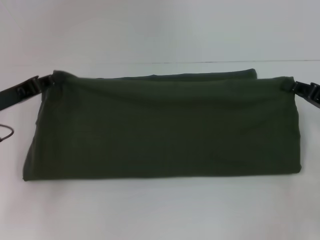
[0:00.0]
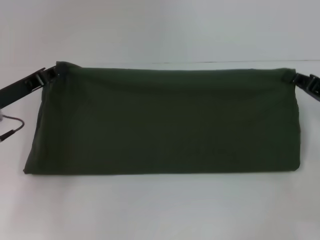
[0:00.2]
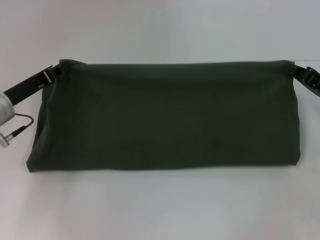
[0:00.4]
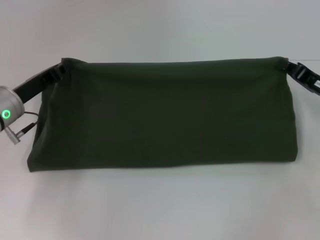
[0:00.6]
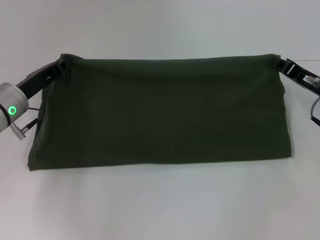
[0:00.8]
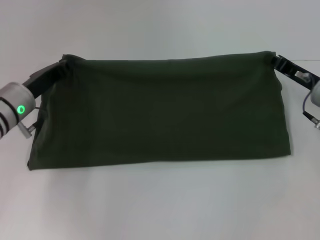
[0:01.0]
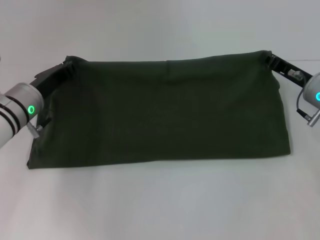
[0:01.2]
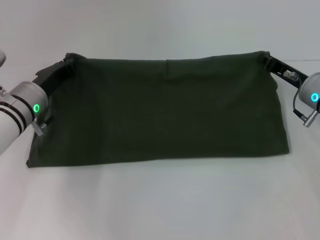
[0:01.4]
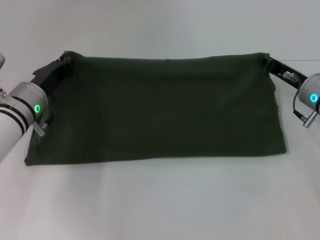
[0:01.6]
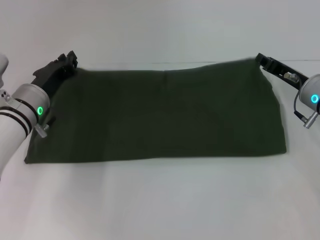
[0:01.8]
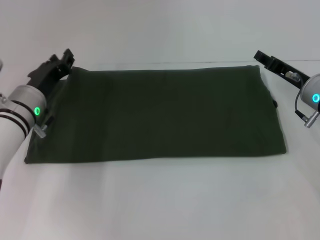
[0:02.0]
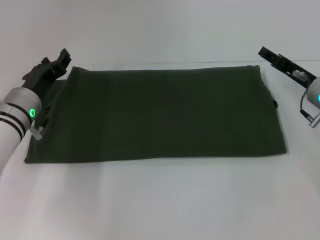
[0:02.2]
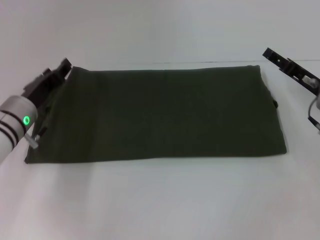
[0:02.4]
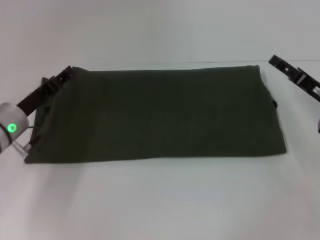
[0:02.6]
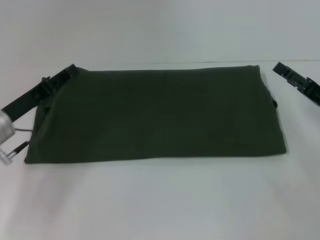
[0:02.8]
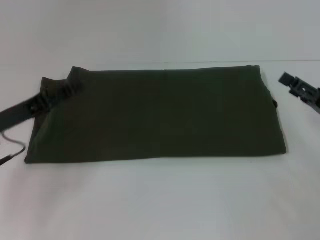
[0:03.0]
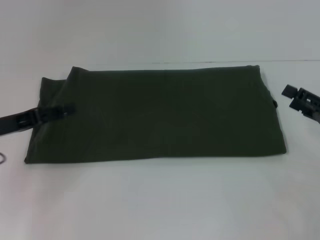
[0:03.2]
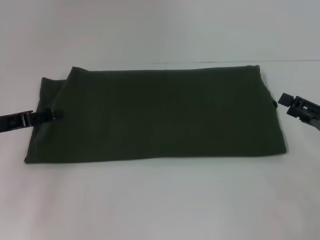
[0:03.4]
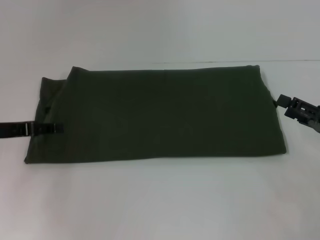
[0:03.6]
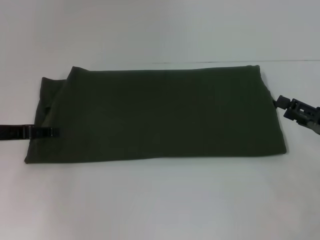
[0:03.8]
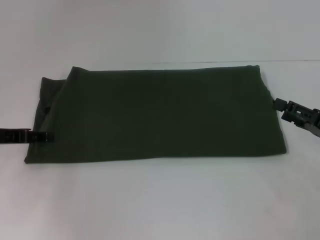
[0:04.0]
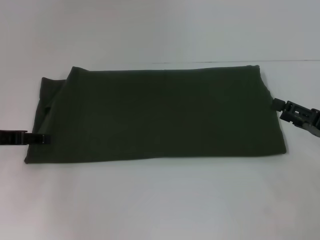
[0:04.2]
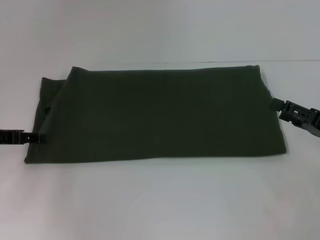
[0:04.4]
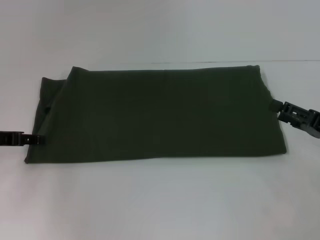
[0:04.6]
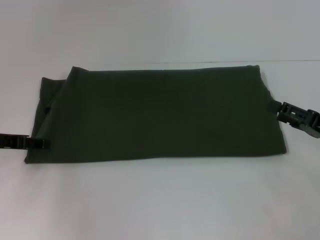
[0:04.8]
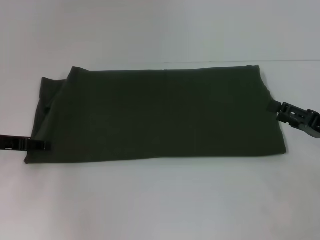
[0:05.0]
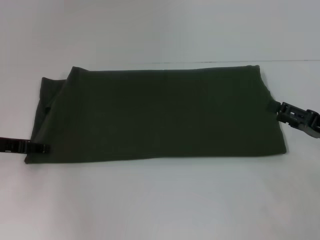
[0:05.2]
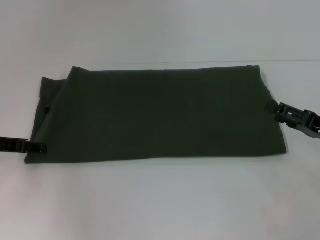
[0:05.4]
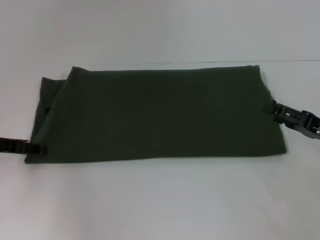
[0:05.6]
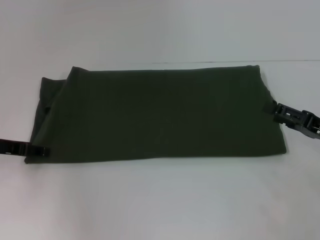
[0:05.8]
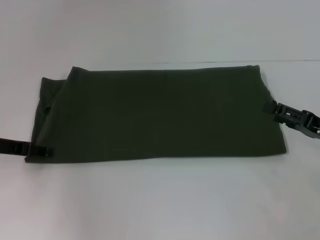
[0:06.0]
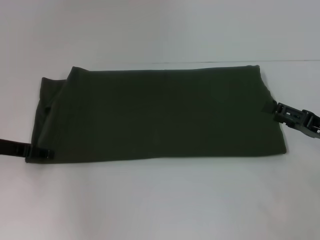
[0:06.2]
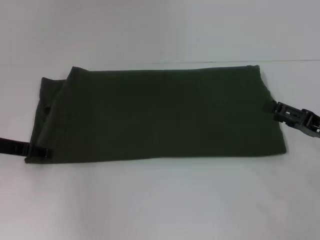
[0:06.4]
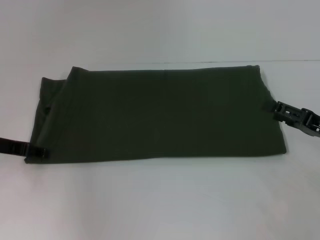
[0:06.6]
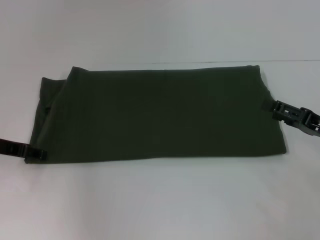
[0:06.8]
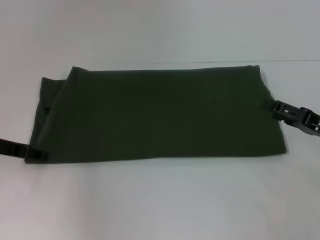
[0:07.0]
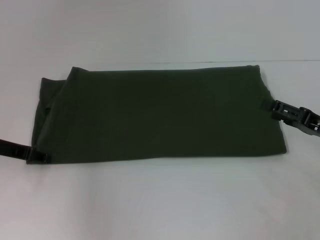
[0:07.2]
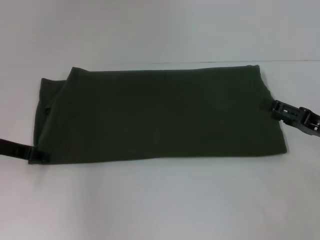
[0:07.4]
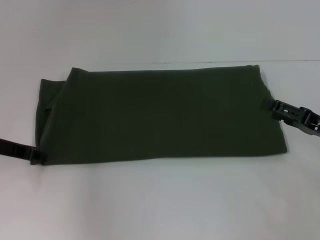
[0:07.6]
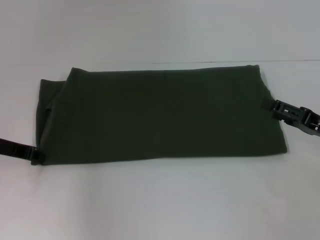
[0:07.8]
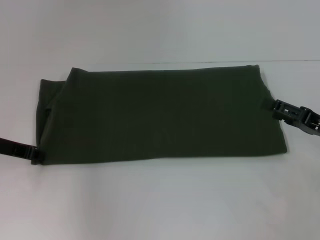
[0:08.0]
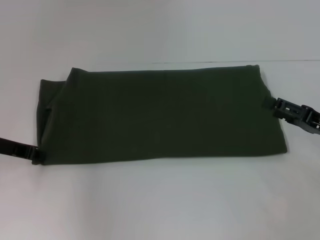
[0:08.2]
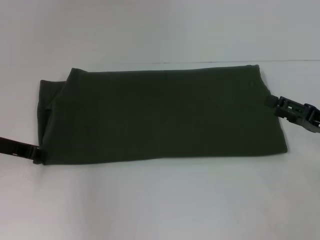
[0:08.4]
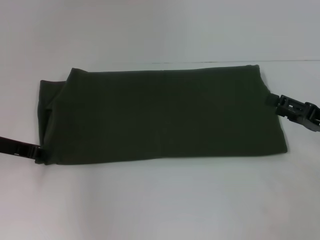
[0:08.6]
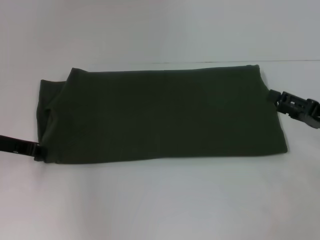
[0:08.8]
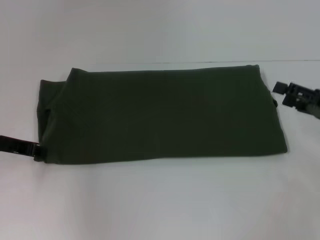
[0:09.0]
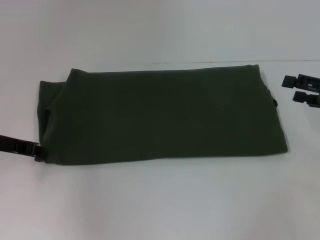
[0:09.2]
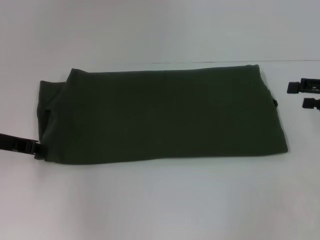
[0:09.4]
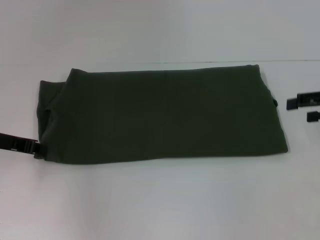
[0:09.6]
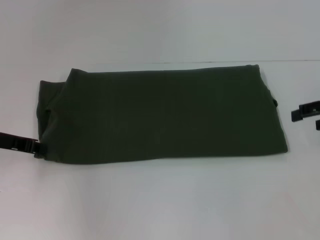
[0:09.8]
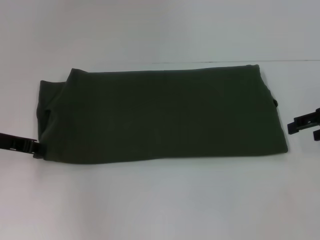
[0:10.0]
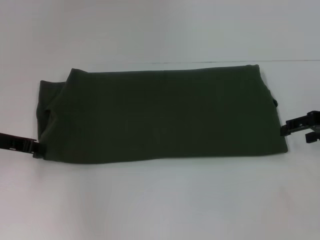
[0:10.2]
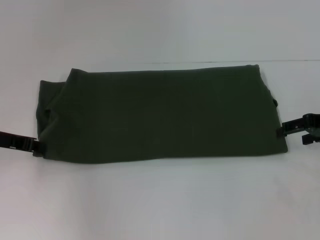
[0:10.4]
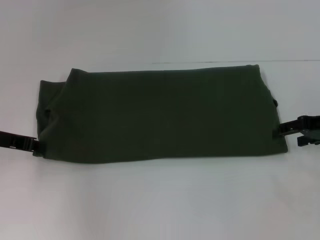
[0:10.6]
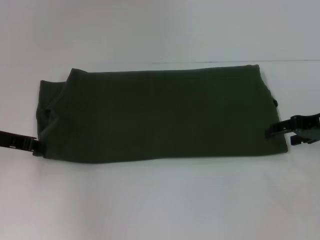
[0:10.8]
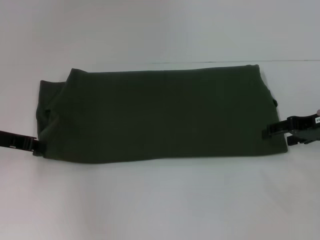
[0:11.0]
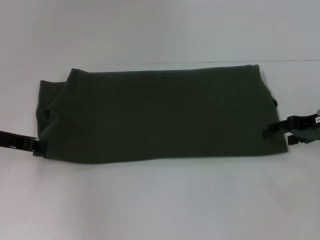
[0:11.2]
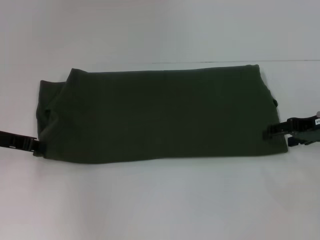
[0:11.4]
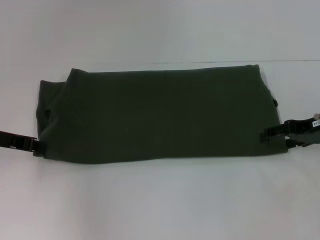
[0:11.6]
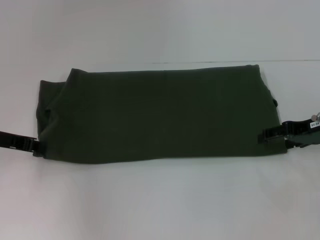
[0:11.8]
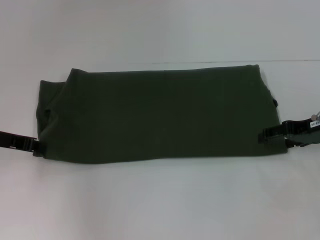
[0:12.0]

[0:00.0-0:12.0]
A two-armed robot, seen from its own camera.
Step, 0:00.0 to 0:02.2: Fold the clothes with your left hand.
Step, 0:00.0 to 0:02.2: Fold the clothes with your right hand.
0:00.0 to 0:01.6: The right gripper moves to the left and forward, about 10 cm, while the left gripper travels to the right and forward by about 10 cm.
0:01.6 to 0:03.0: The left gripper heads backward and to the left, covering roughly 10 cm, and opens up. The right gripper moves backward and to the right, roughly 10 cm, and opens its fingers.
0:03.0 to 0:04.4: The left gripper changes place by about 5 cm.
0:04.4 to 0:07.6: There are only small adjustments of the grippers.
0:07.6 to 0:09.0: The left gripper closes.
0:09.0 to 0:10.4: The right gripper is displaced forward by approximately 5 cm.
0:10.4 to 0:12.0: The grippers stay close to where they were, moving slightly.

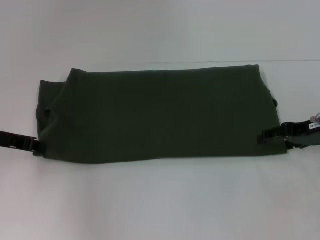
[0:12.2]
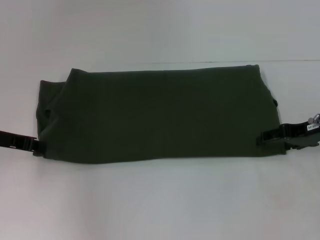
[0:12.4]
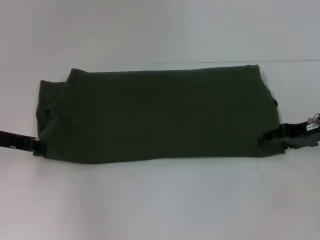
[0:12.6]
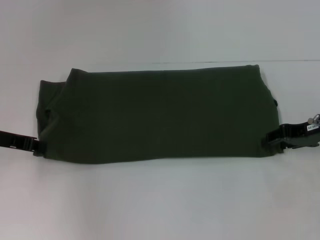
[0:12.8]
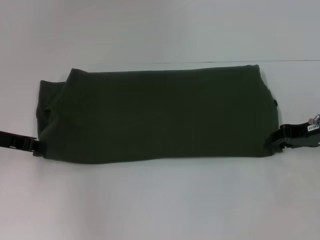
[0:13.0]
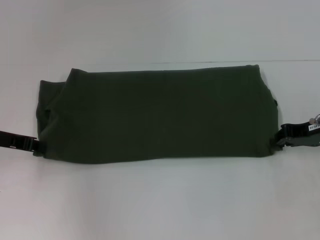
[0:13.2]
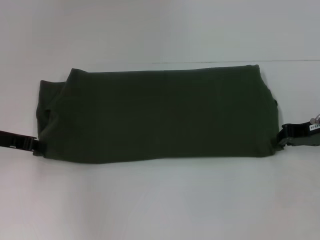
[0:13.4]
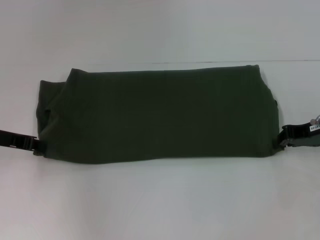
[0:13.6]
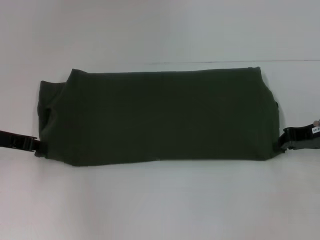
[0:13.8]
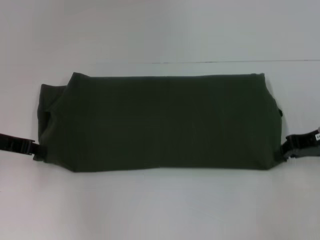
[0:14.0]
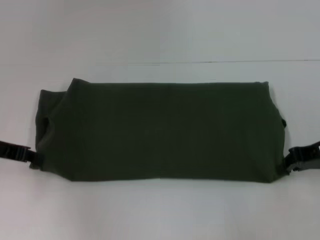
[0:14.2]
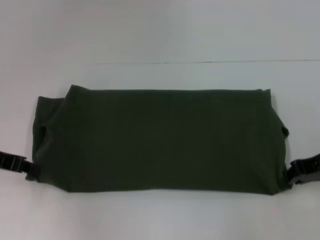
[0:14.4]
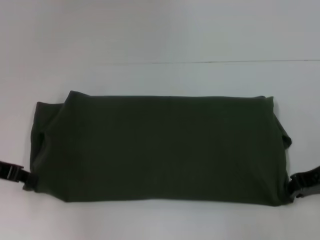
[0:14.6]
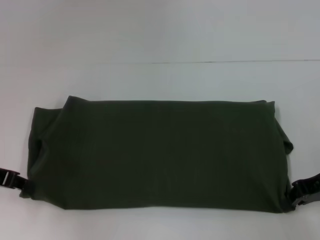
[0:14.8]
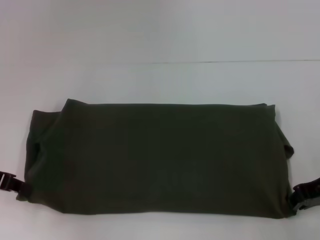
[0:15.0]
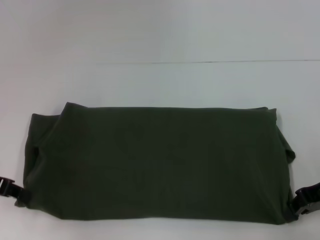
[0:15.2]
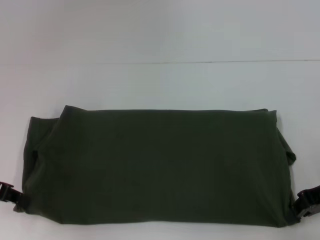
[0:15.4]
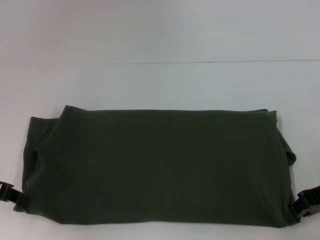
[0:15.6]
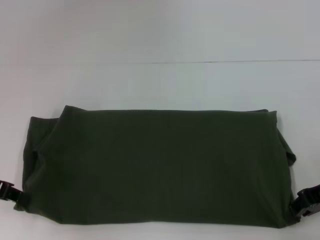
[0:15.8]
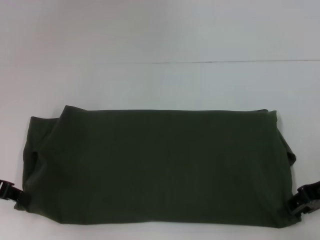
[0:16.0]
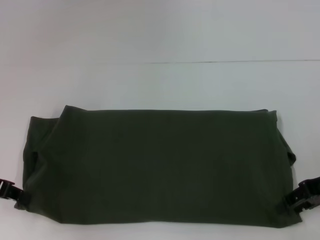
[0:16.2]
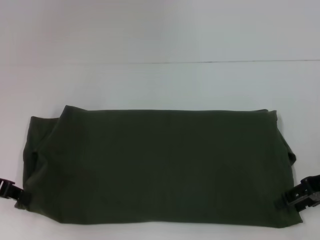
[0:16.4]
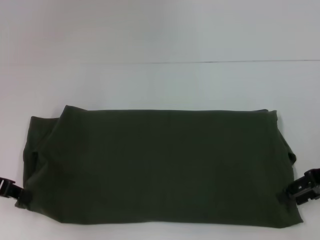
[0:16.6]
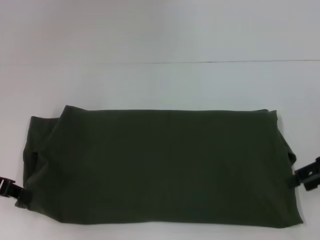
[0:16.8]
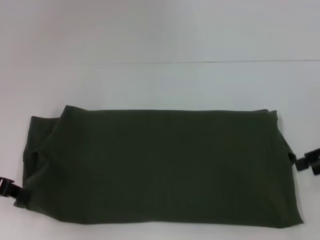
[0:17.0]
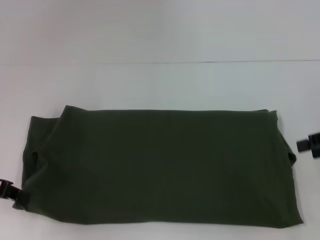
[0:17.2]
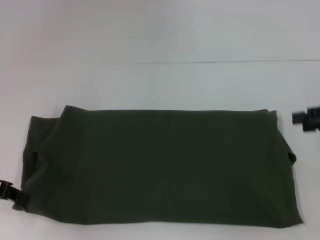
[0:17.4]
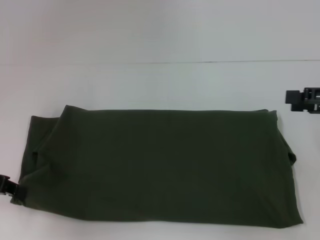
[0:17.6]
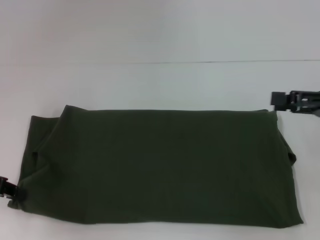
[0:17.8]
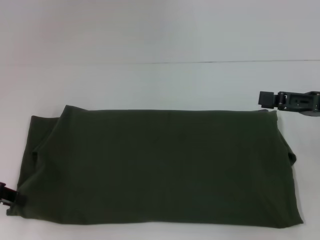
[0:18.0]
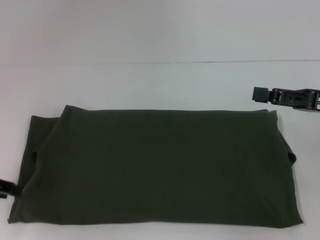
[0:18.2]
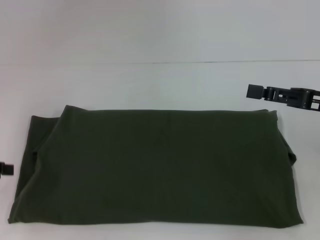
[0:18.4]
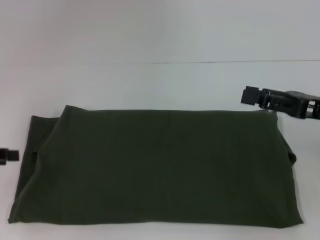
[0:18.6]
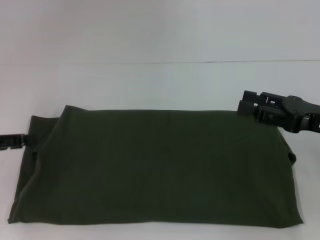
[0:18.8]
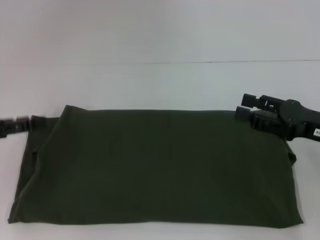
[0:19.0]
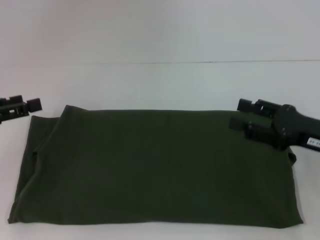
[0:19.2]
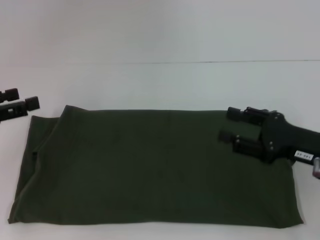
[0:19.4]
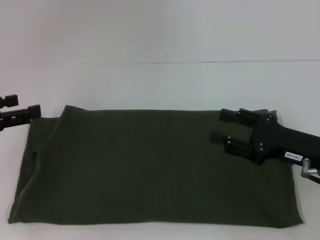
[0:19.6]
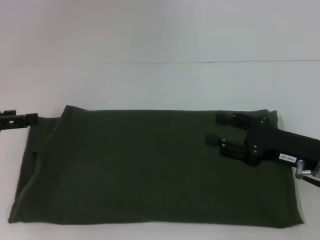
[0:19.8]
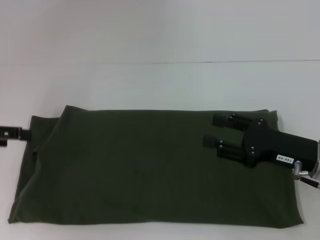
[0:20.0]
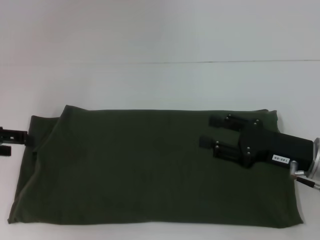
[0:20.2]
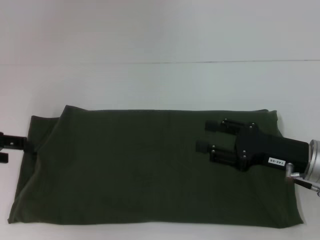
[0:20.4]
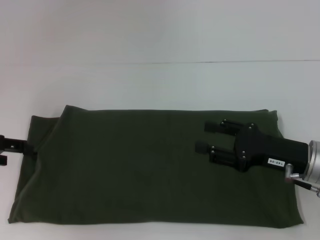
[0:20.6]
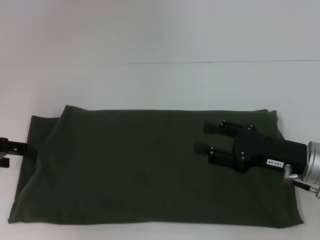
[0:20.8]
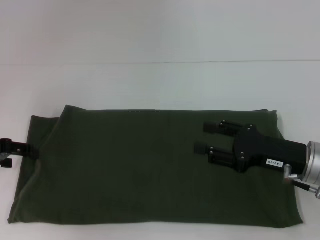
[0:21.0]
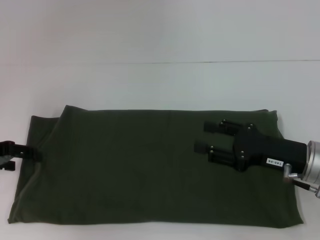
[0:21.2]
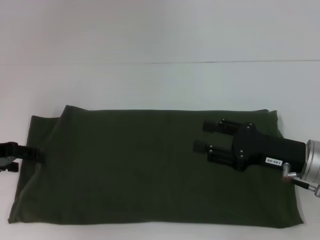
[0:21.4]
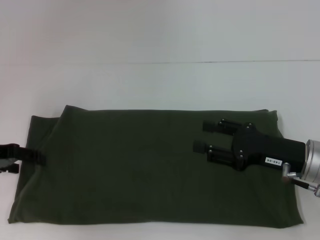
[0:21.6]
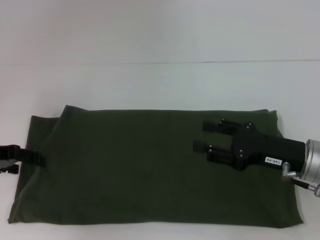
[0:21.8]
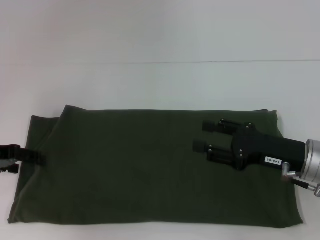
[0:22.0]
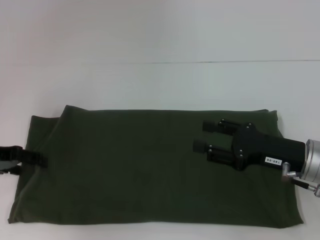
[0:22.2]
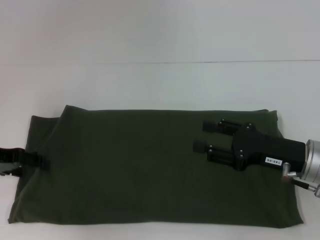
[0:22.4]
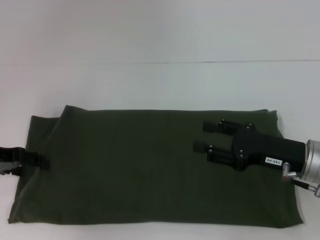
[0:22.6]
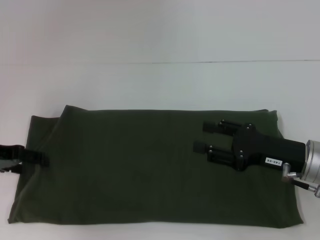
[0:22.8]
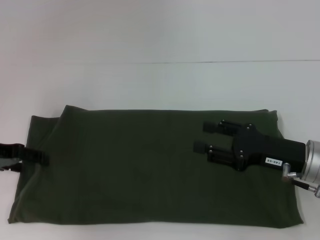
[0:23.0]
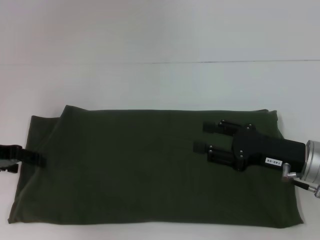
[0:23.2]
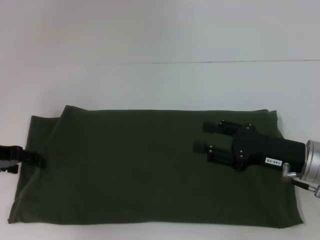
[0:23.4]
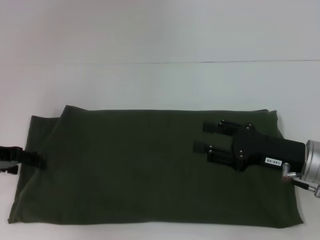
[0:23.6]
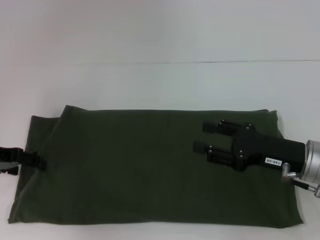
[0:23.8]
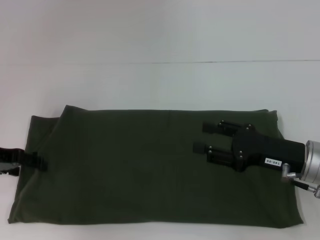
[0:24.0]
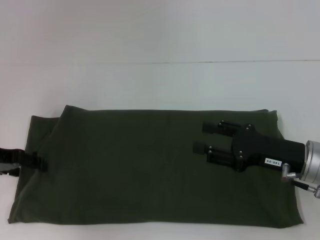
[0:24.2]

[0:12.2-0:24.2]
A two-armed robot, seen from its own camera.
Step, 0:12.2 to 0:16.2: Pull the clothes with your left hand.
Step, 0:12.2 to 0:16.2: Pull the clothes with your right hand.
0:12.2 to 0:13.8: The right gripper closes up.
0:13.8 to 0:15.2: The right gripper moves backward, approximately 5 cm; the left gripper moves approximately 5 cm.
0:15.2 to 0:16.6: The right gripper opens.
0:18.2 to 0:19.8: The right gripper travels downward and to the left by approximately 10 cm; the left gripper opens its fingers.
0:19.8 to 0:21.2: The left gripper ends up roughly 5 cm from where it was.
0:21.2 to 0:22.6: The grippers move only a little.
0:22.6 to 0:24.2: The two grippers keep their place.
